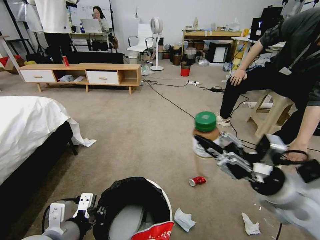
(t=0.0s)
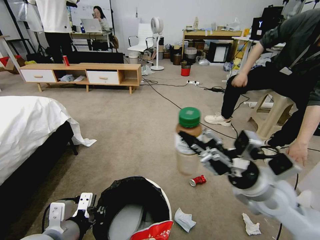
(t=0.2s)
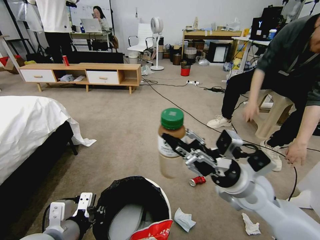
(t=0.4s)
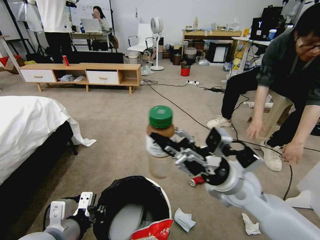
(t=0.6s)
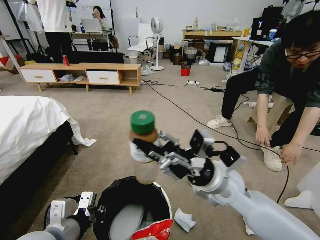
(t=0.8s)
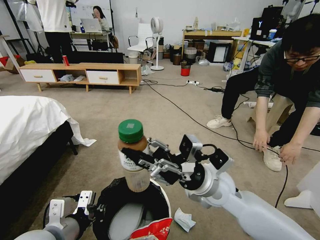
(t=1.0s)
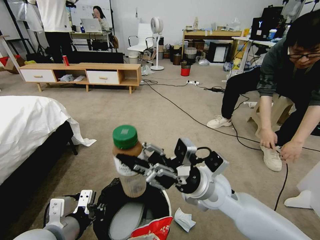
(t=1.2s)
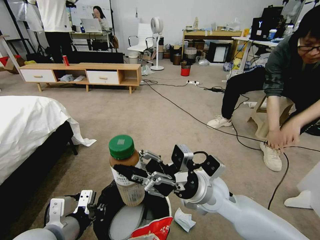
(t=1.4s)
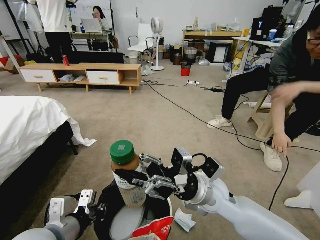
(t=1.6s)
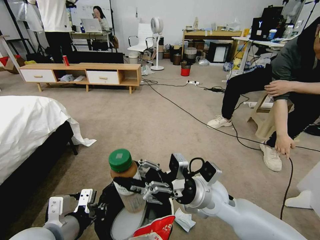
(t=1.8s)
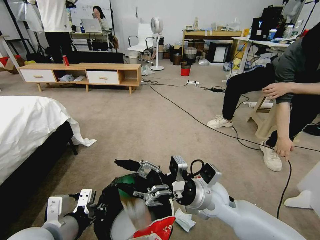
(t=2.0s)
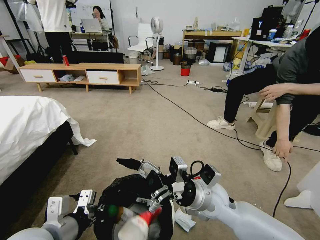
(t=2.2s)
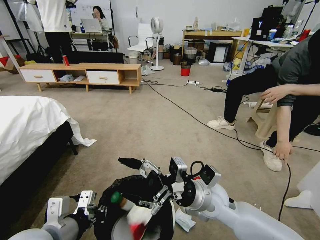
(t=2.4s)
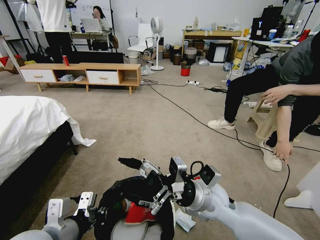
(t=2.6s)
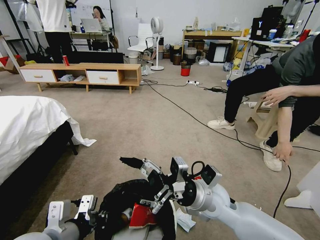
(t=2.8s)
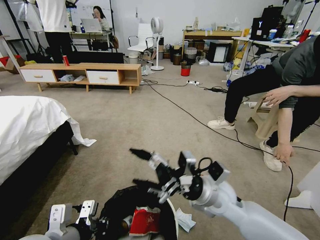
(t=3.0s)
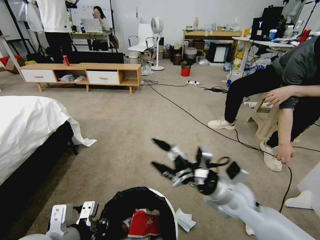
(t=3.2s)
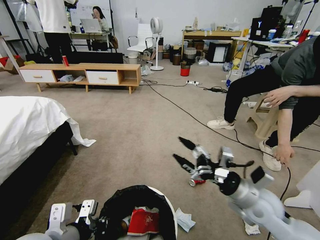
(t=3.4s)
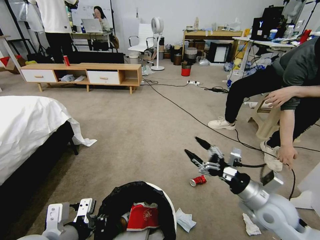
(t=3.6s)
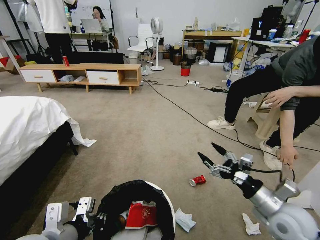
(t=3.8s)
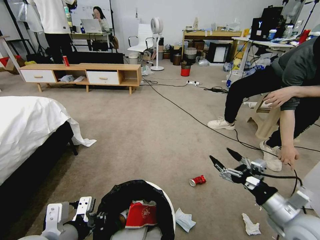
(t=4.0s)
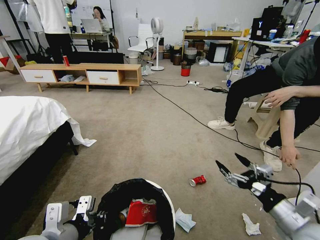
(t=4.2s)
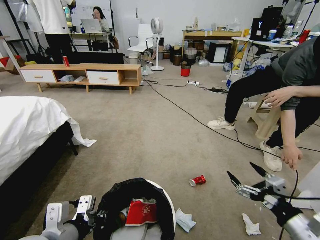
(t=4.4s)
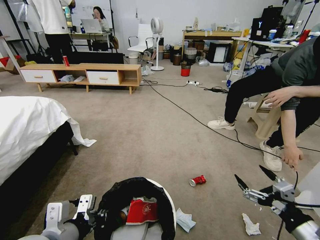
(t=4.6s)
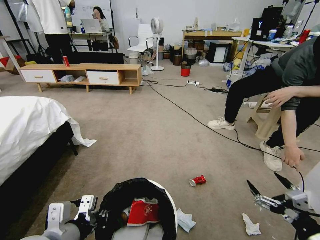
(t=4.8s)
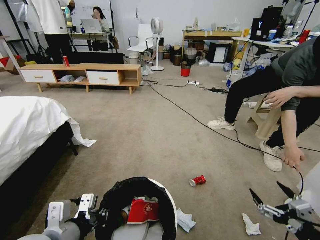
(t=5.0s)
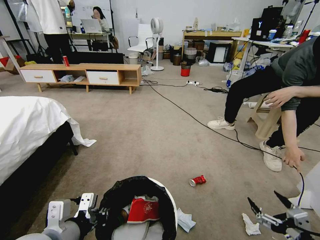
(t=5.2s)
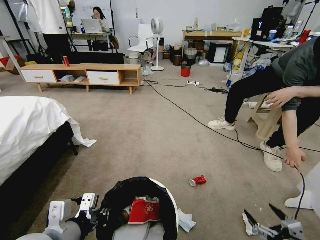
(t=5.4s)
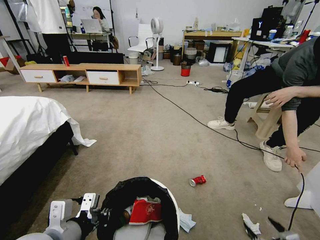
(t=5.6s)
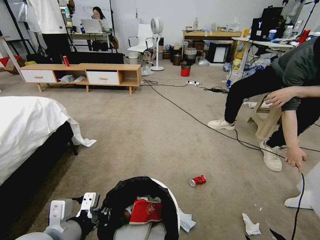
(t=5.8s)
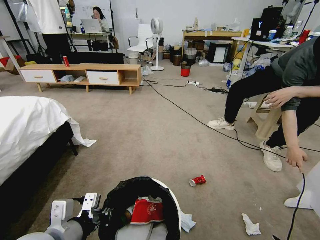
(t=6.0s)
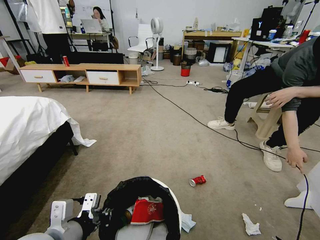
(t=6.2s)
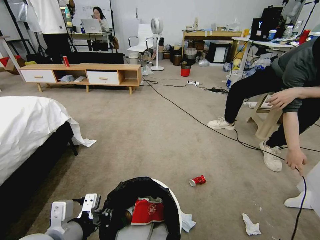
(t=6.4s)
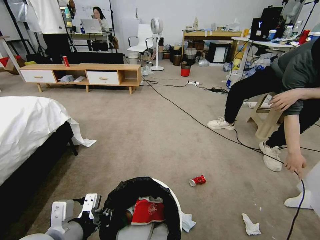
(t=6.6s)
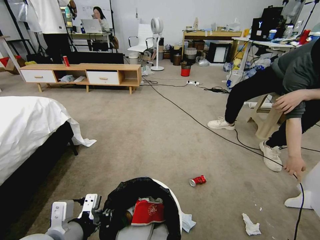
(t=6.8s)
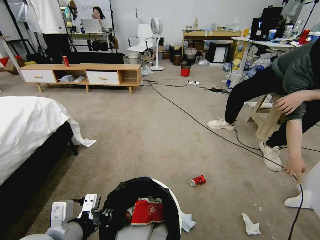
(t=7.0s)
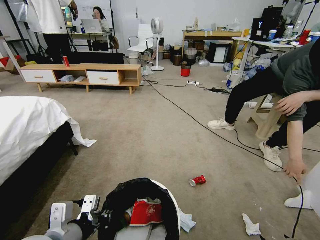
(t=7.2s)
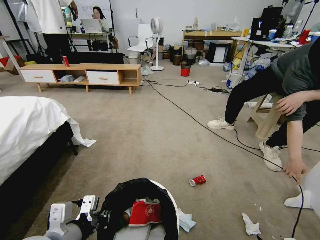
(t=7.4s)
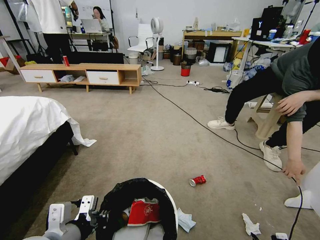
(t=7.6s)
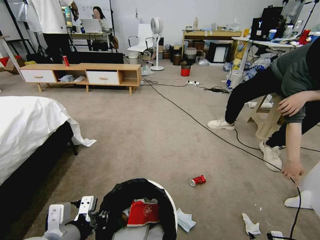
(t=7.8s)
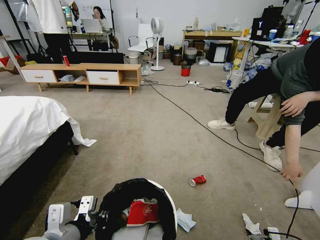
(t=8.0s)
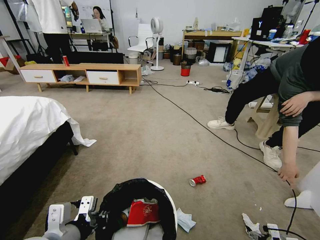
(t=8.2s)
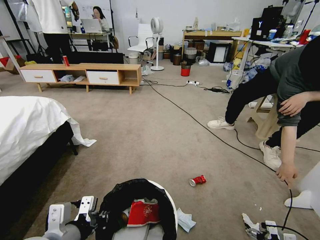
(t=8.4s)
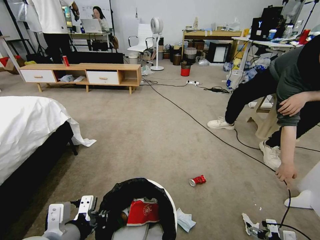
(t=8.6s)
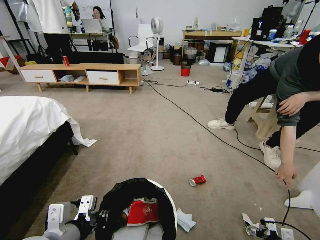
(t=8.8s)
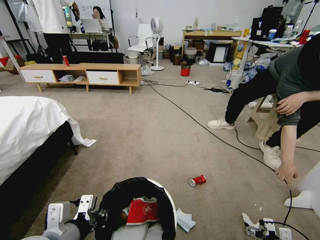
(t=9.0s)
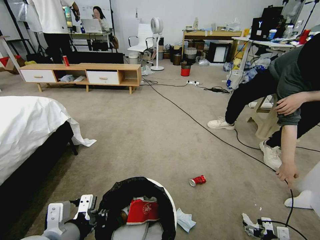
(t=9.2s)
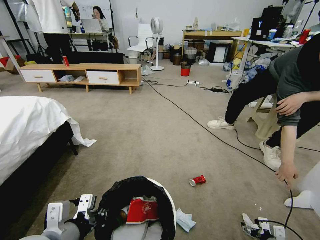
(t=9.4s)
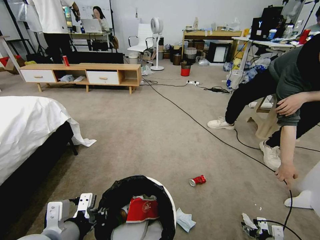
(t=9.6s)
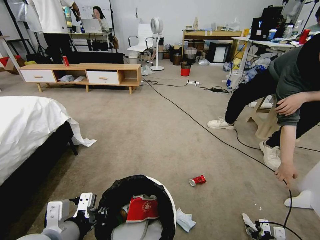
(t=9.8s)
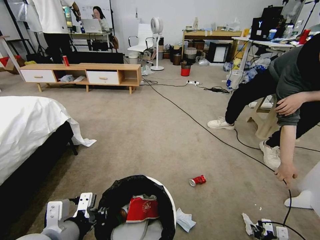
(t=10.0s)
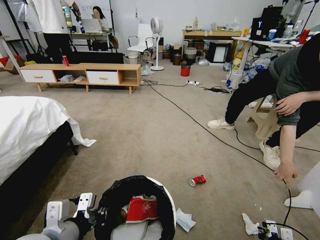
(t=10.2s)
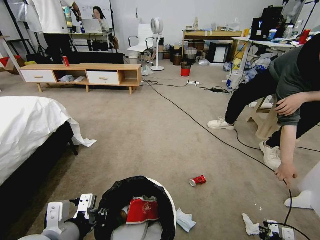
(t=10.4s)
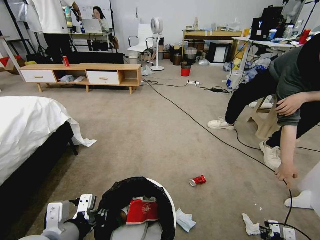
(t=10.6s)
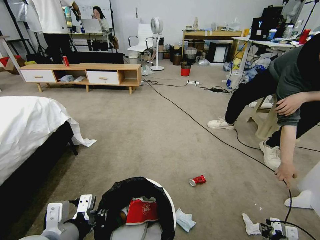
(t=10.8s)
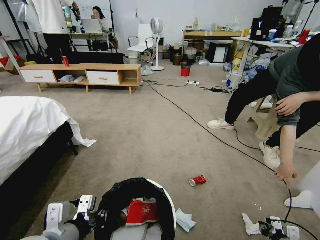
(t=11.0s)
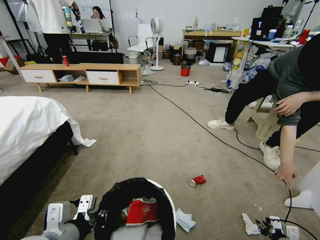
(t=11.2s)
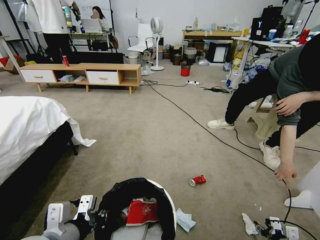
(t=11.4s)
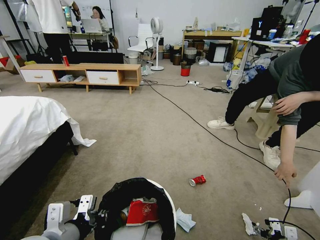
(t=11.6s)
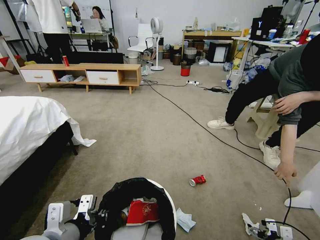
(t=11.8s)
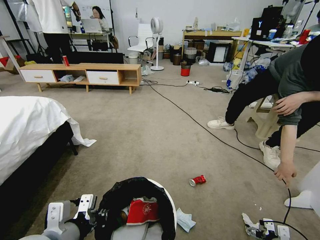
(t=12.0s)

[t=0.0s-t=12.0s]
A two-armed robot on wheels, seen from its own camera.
Task of the whole recording: Pick up the trash bin and place the garbage on the floor into it.
t=0.0s to t=1.6s: The right gripper moves to the left, some 15 cm.
t=1.6s to t=3.0s: The right gripper opens its fingers.
t=3.0s to t=4.4s: The right gripper moves to the right and backward, roughly 25 cm.
t=4.4s to t=6.0s: The right gripper moves backward and downward, roughly 15 cm.
t=6.0s to t=7.6s: The right gripper moves downward, forward and to the right, roughly 15 cm.
t=7.6s to t=9.0s: The right gripper goes about 10 cm forward.
t=9.0s to t=10.4s: The right gripper closes.
t=10.4s to t=12.0s: The right gripper opens up.

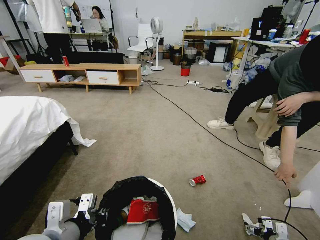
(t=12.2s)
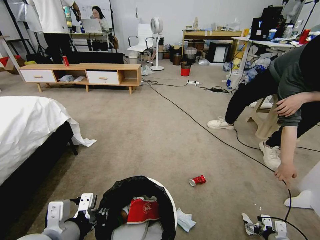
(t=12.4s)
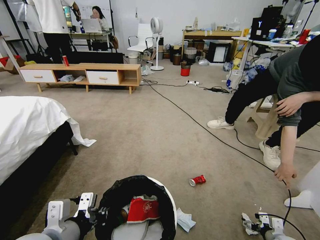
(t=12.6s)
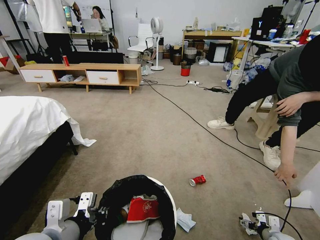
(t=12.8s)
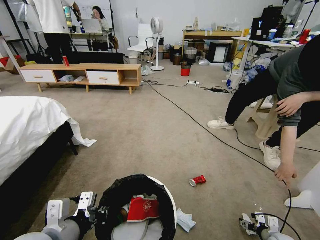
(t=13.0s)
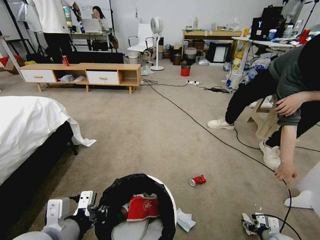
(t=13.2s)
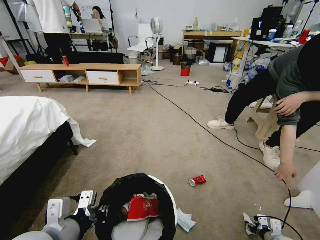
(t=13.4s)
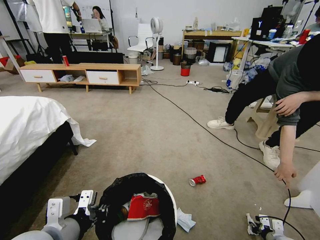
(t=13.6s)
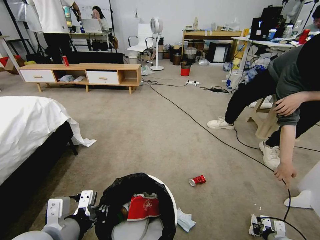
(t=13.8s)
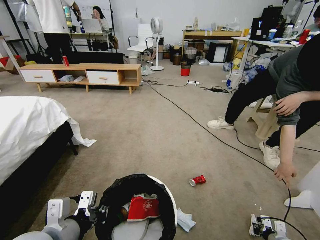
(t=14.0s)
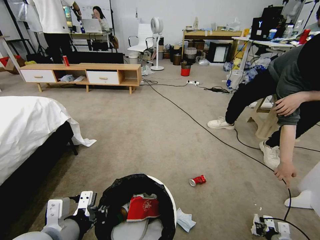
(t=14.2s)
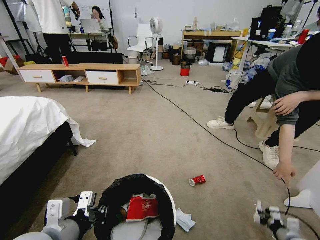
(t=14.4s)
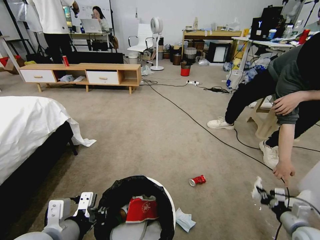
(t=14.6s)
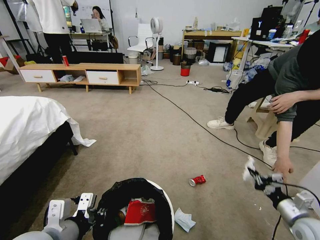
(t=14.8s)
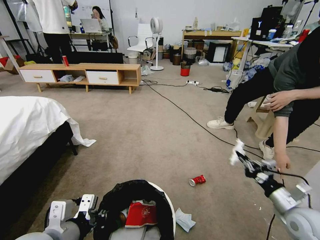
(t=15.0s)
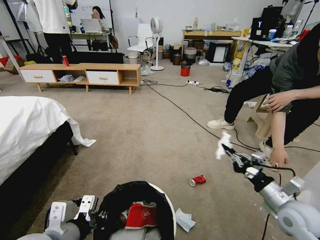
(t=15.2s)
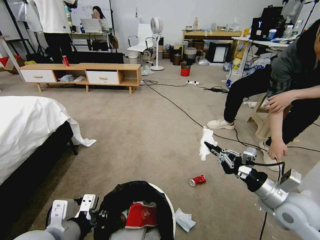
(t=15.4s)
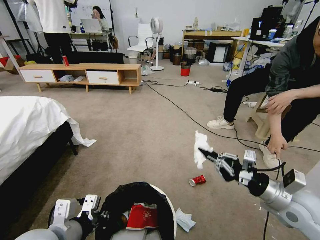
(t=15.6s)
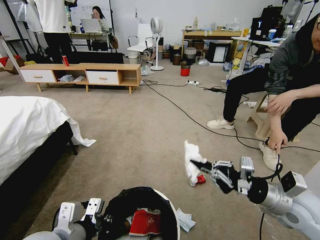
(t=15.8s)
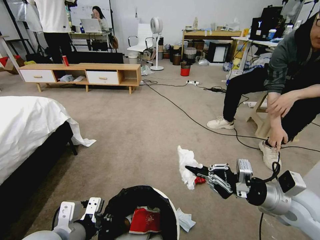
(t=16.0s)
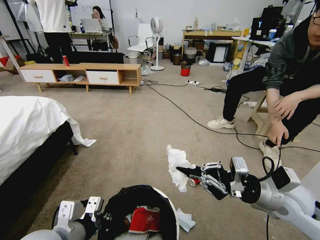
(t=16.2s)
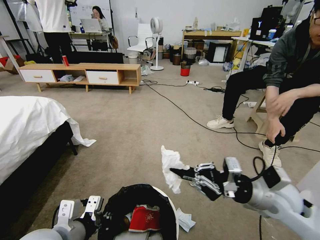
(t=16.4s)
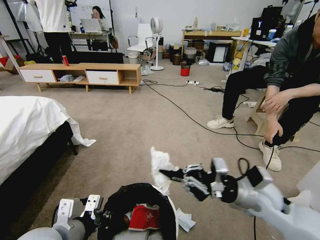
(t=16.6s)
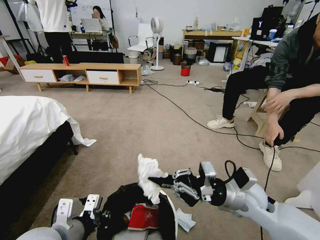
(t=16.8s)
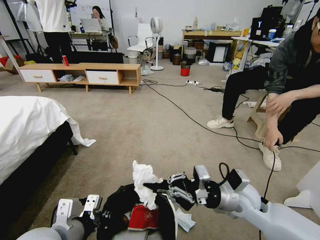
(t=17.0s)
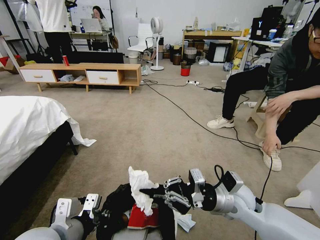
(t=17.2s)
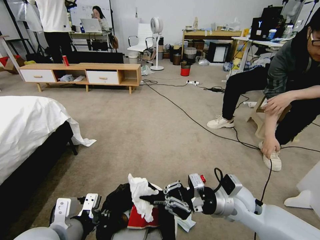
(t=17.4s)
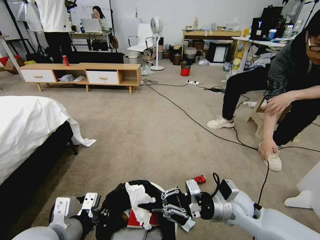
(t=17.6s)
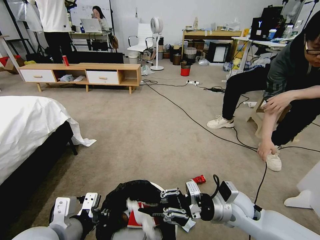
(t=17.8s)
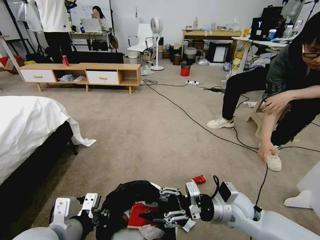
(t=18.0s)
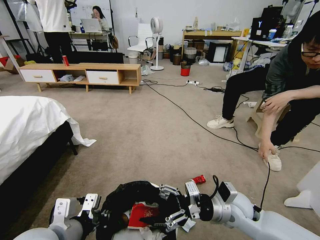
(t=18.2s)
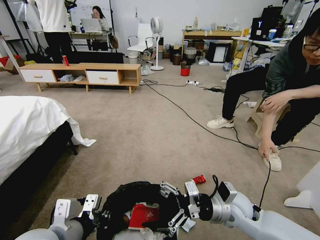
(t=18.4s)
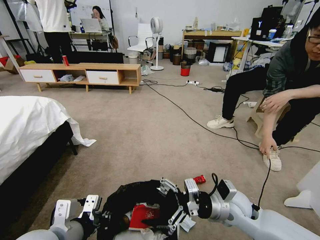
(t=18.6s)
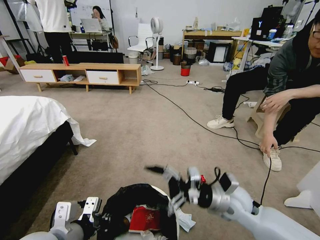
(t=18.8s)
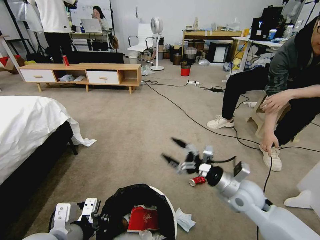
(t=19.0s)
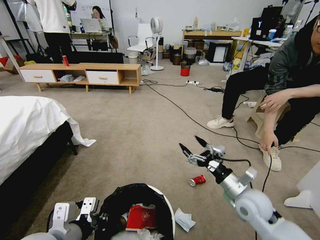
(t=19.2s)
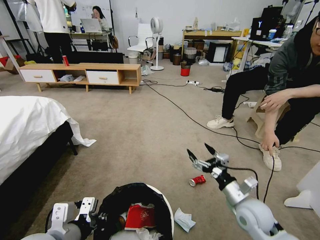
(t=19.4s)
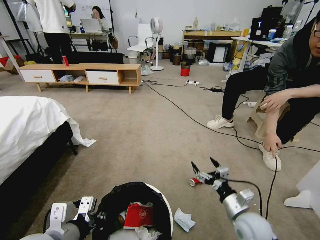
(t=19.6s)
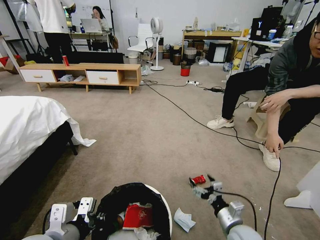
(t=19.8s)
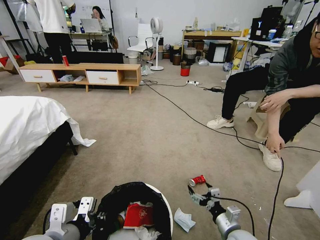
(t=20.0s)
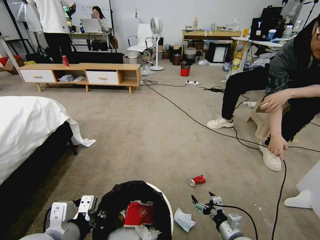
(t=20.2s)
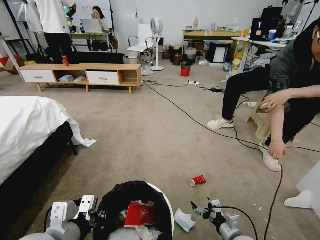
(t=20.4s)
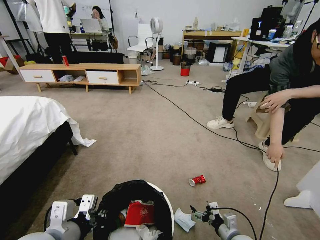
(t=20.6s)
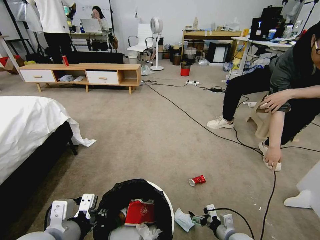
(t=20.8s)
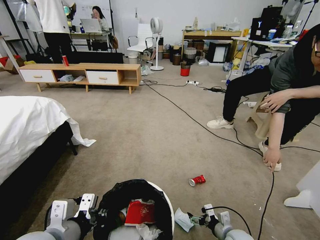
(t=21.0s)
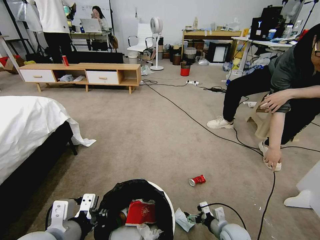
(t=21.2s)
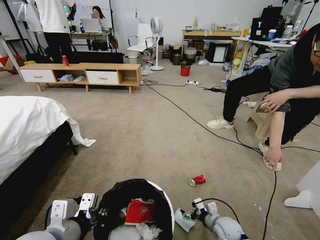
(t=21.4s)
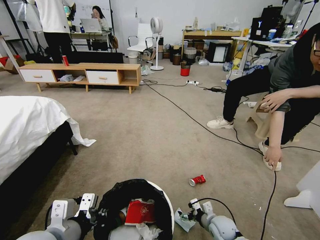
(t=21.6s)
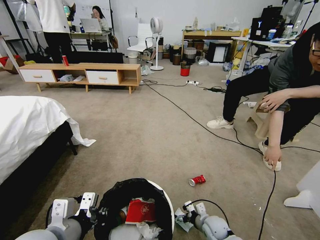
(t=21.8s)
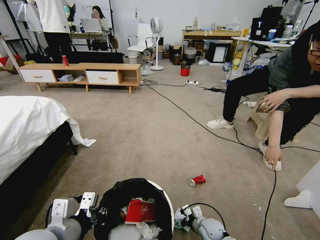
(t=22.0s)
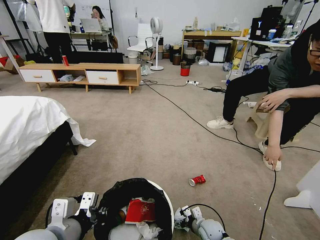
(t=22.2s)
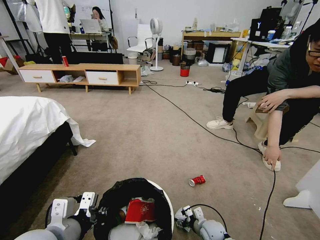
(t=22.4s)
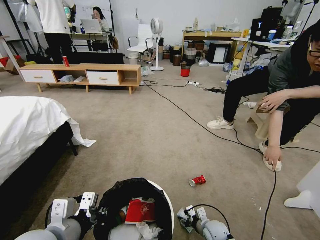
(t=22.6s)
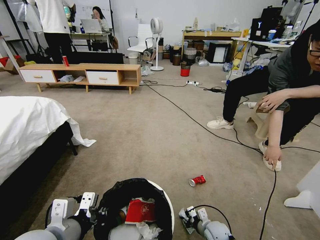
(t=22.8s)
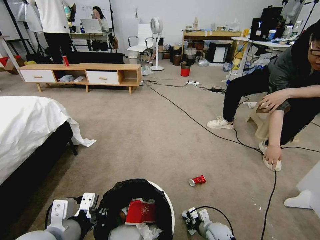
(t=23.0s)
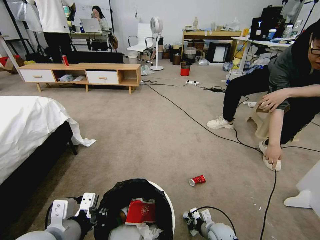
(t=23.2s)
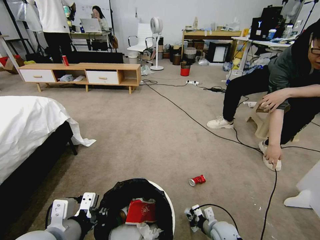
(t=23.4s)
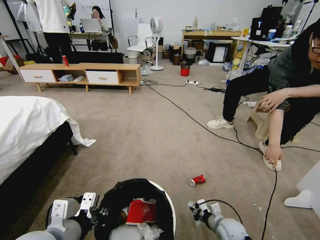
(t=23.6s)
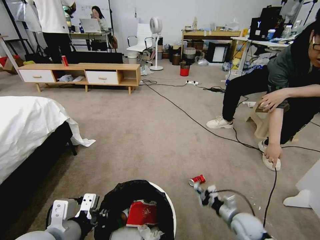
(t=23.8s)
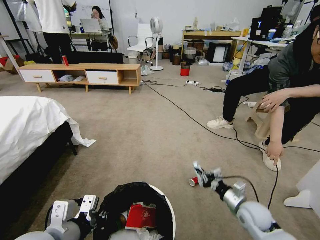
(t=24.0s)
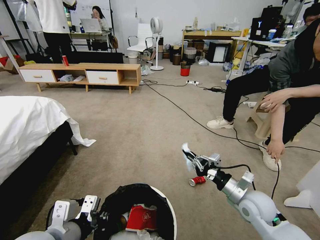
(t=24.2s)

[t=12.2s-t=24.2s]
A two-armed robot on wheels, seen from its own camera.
Task of the whole recording: Pick up the trash bin and place the garbage on the floor into it.
t=12.2s to t=13.8s: The right gripper closes up.
t=13.8s to t=15.2s: The right gripper travels upward and to the left by about 25 cm.
t=15.2s to t=16.6s: The right gripper travels to the left and upward by about 15 cm.
t=16.6s to t=18.2s: The right gripper moves downward, roughly 5 cm, and opens.
t=18.2s to t=19.8s: The right gripper is displaced downward and backward by roughly 10 cm.
t=19.8s to t=21.2s: The right gripper goes roughly 10 cm downward.
t=21.2s to t=22.6s: The right gripper shifts some 5 cm downward, and closes.
t=22.6s to t=24.2s: The right gripper is displaced upward by approximately 25 cm, and closes its fingers.
